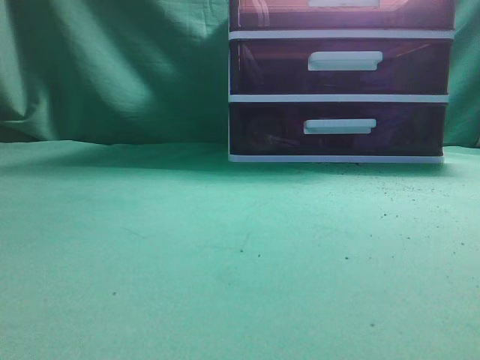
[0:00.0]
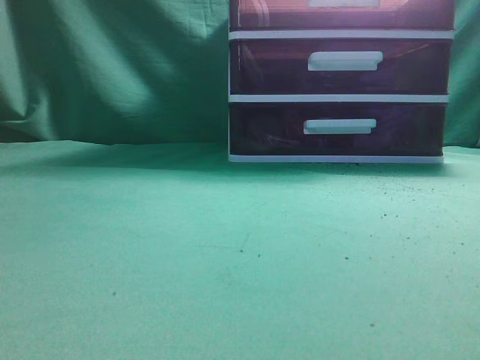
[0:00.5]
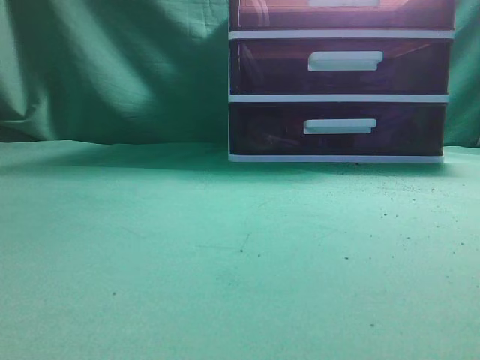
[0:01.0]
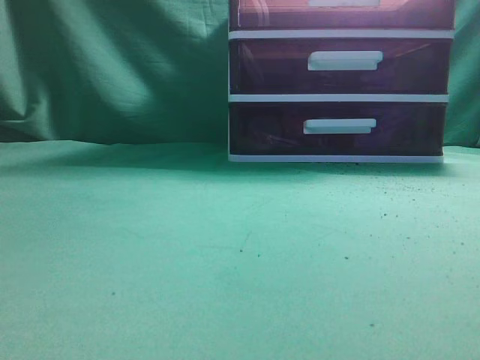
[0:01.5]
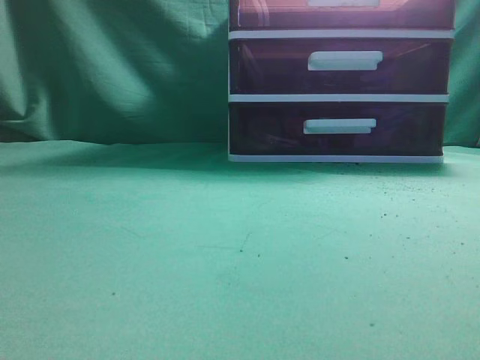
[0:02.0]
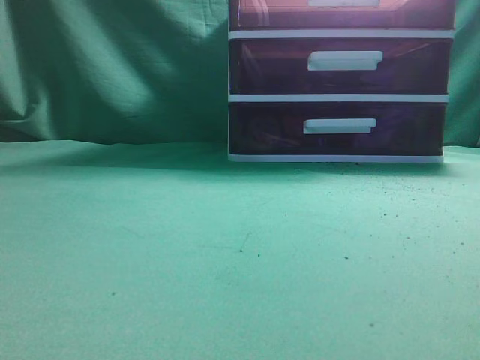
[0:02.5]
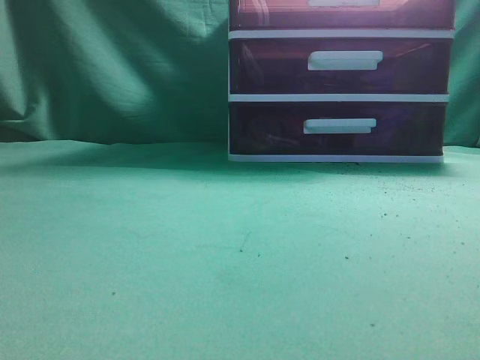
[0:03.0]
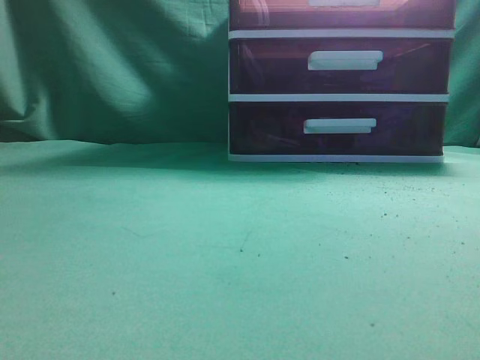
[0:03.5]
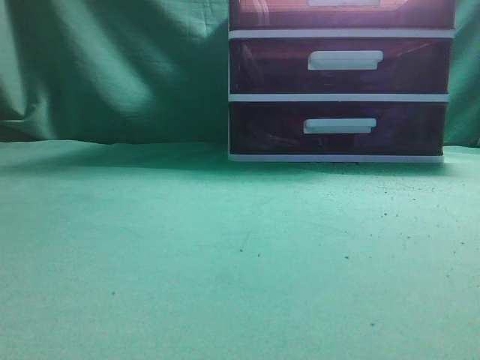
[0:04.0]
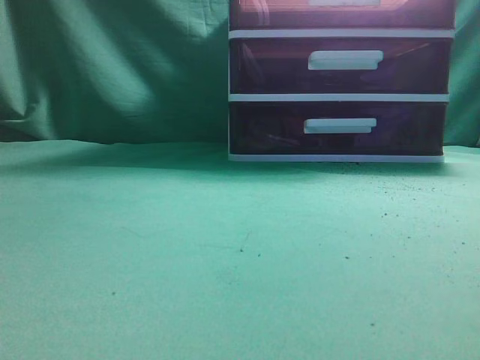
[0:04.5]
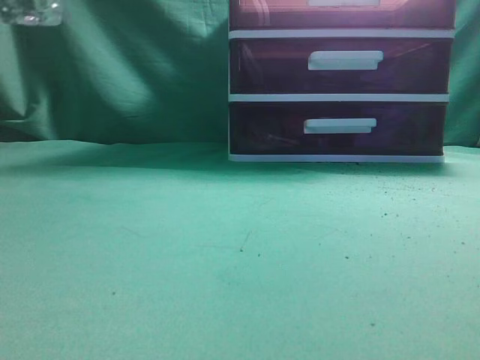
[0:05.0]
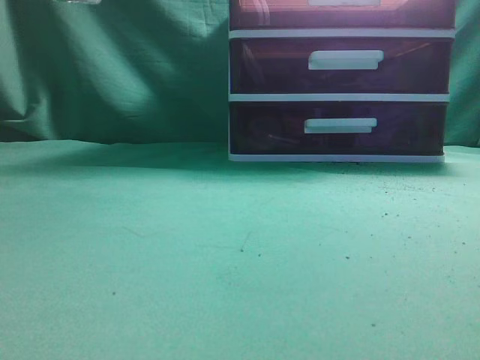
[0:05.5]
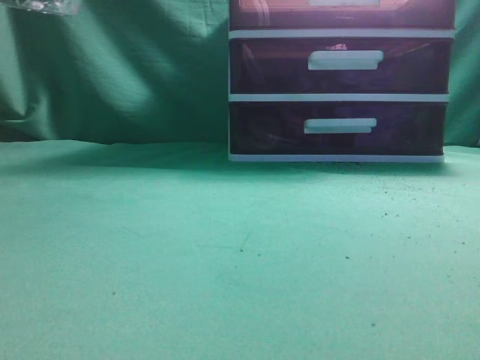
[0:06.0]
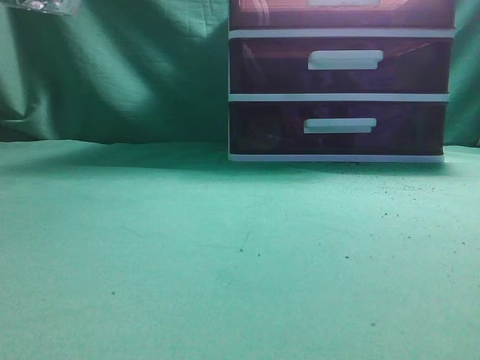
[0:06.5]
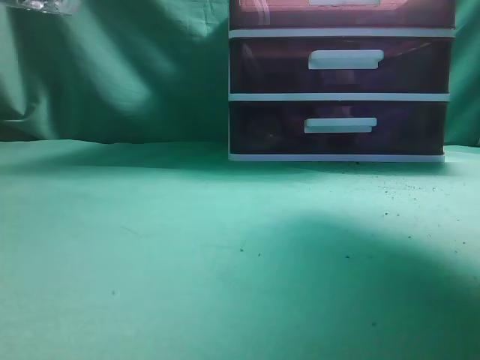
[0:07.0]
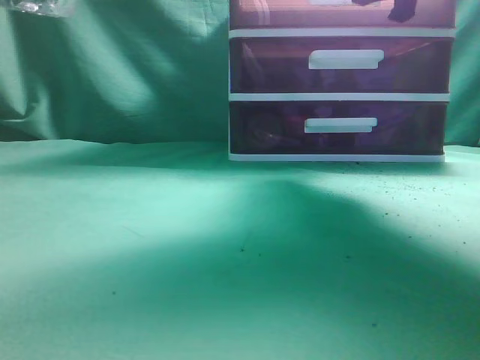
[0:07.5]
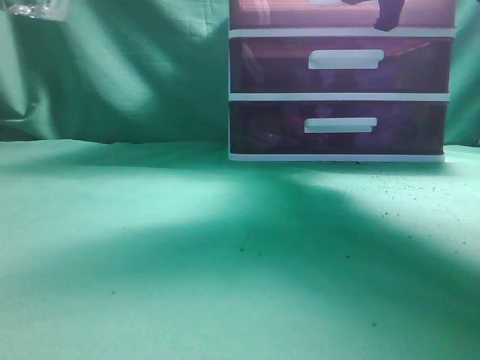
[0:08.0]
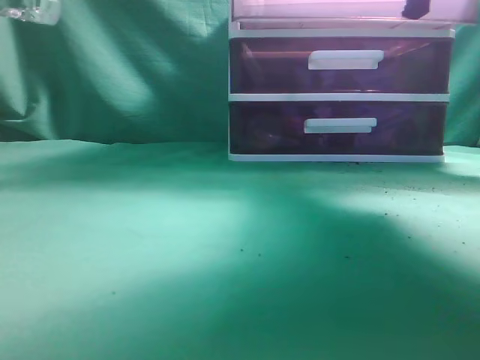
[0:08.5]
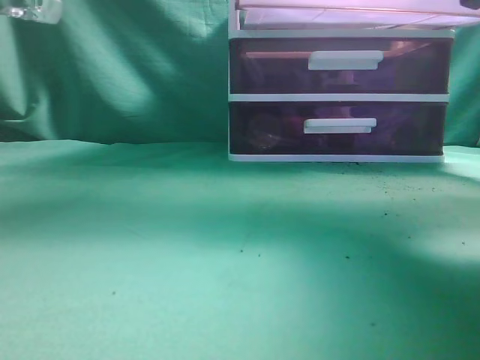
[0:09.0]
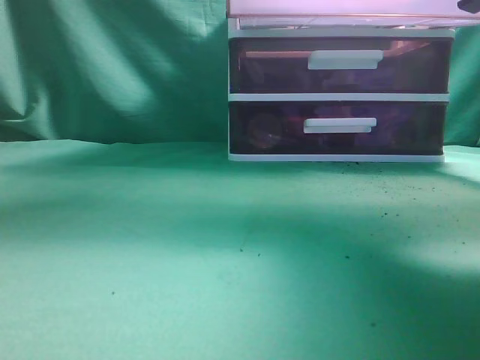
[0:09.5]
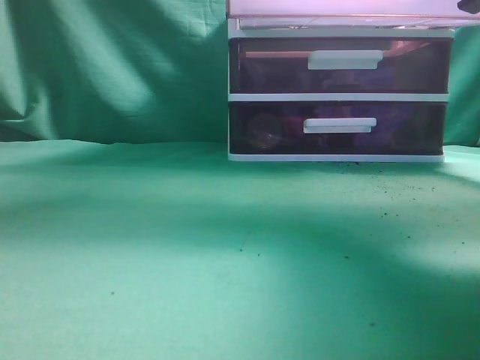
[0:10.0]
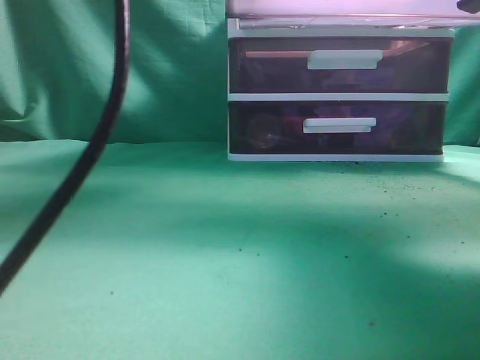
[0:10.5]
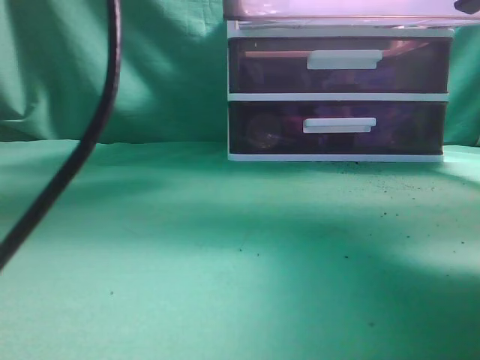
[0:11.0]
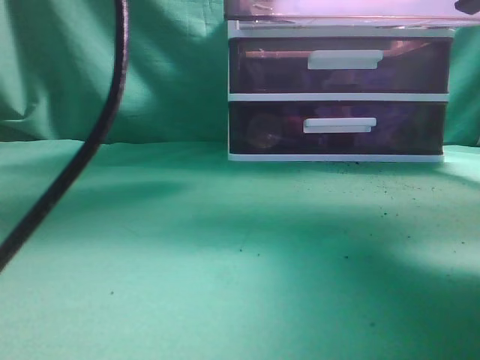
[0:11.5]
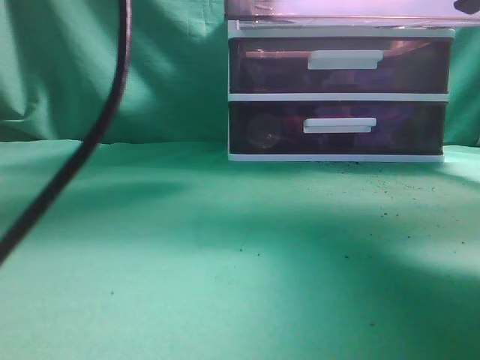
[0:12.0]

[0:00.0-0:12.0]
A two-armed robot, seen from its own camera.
Task of the whole recording: place the water bottle into the drawer.
Step, 0:00.0 to 0:09.0: Open the drawer.
0:06.0 to 0:08.0: The right gripper goes about 30 cm forward.
0:08.0 to 0:10.0: The right gripper travels backward by approximately 15 cm. The left gripper goes roughly 20 cm upward and to the right.
0:10.0 to 0:12.0: The left gripper heads forward, downward and to the right, covering some 20 cm, and opens up.

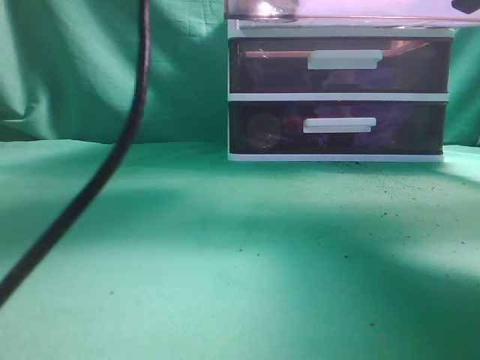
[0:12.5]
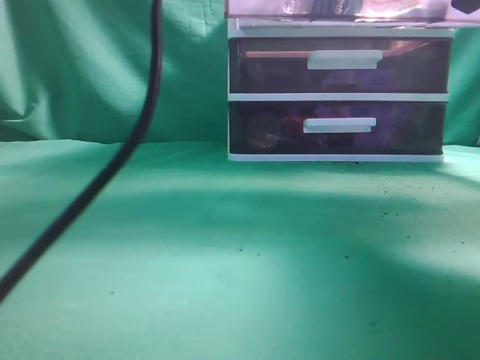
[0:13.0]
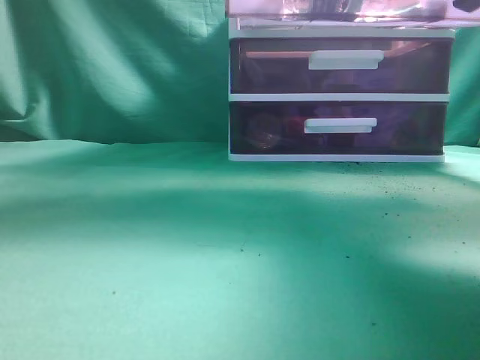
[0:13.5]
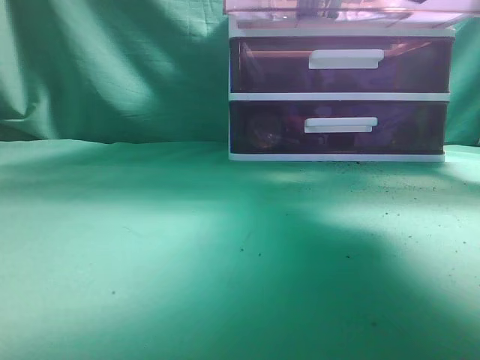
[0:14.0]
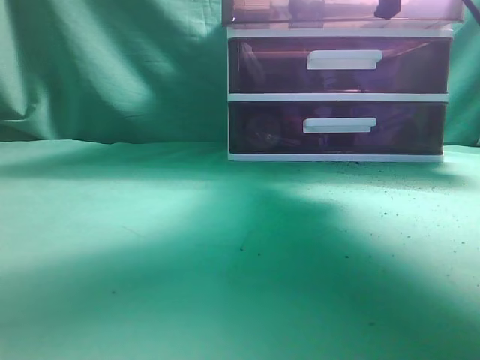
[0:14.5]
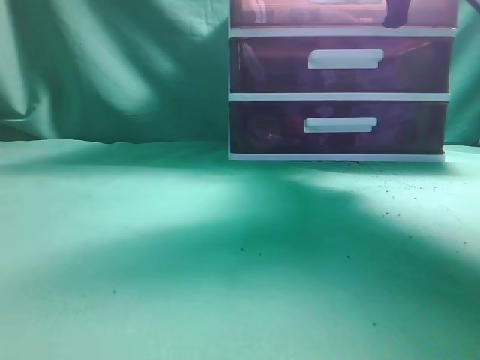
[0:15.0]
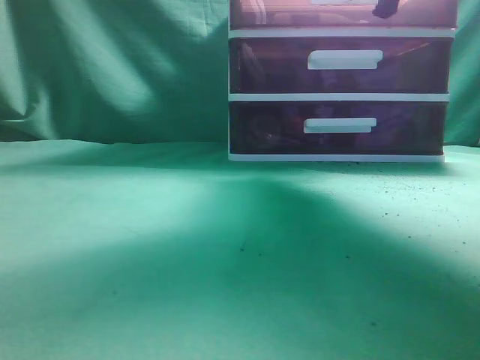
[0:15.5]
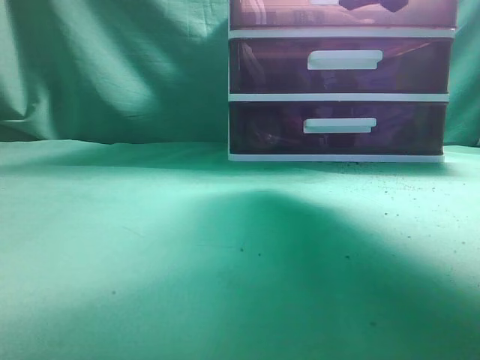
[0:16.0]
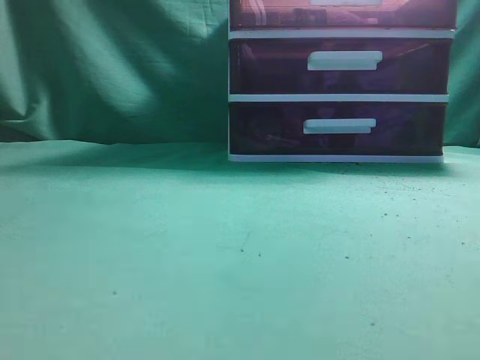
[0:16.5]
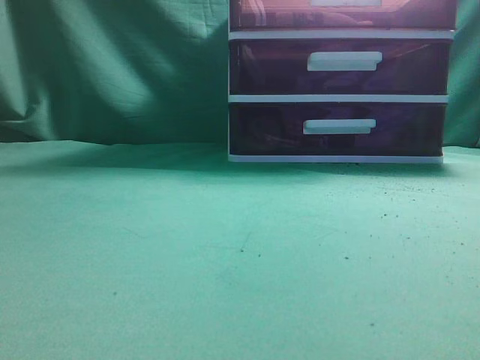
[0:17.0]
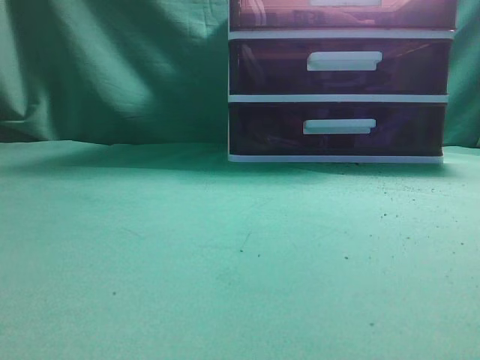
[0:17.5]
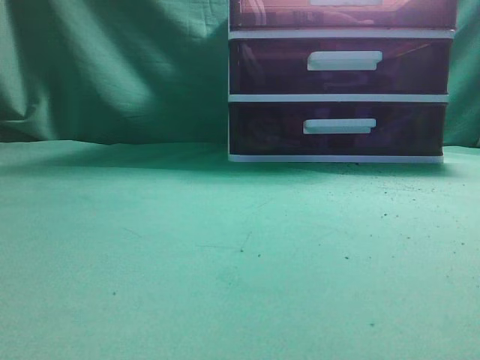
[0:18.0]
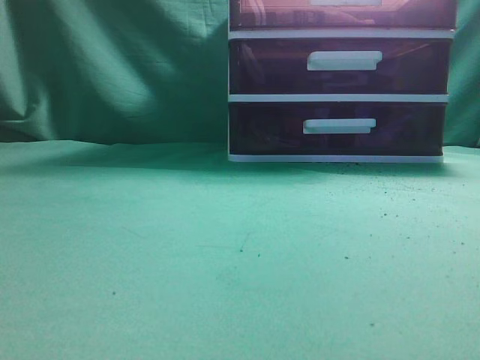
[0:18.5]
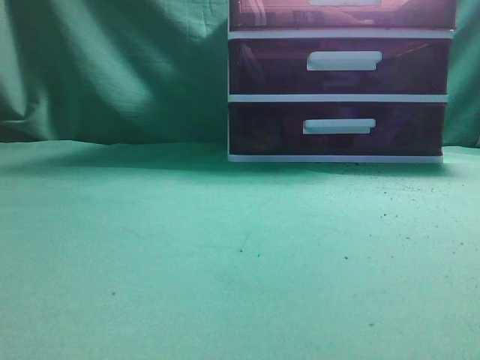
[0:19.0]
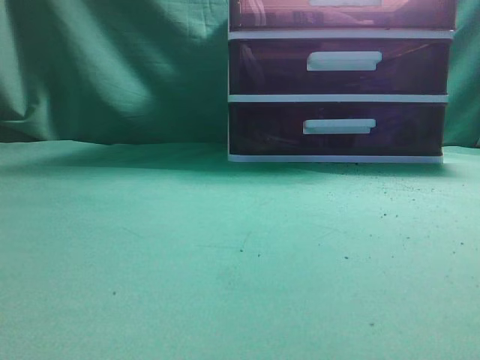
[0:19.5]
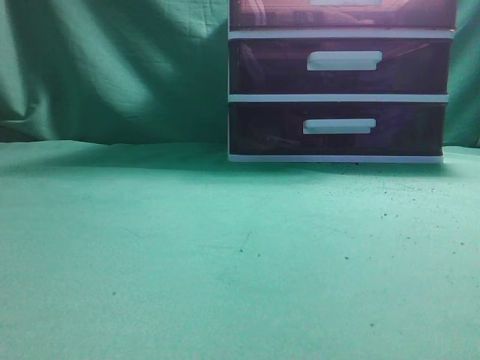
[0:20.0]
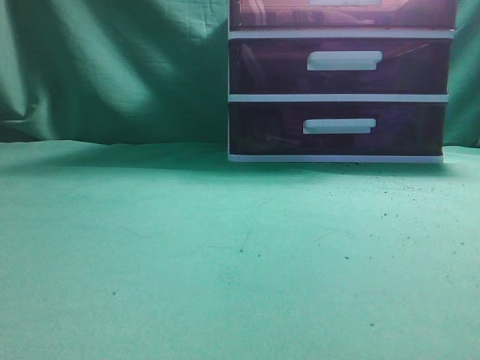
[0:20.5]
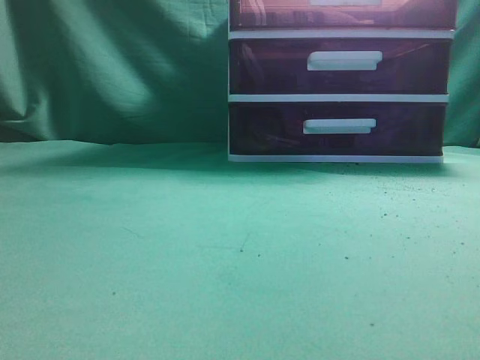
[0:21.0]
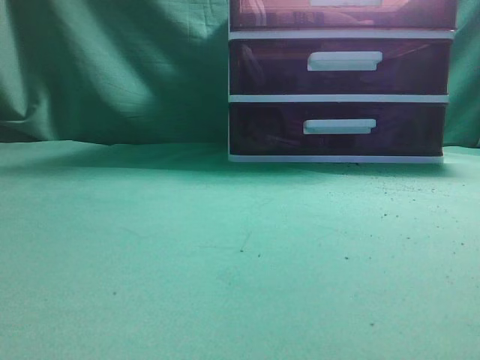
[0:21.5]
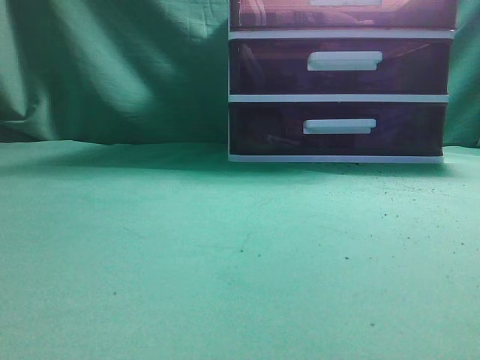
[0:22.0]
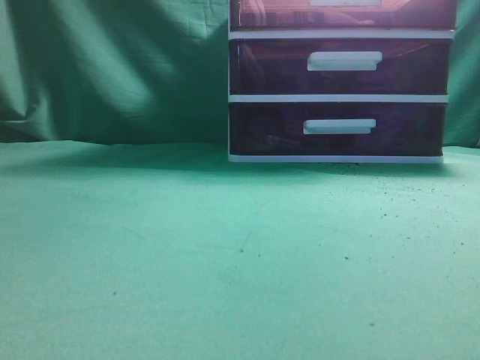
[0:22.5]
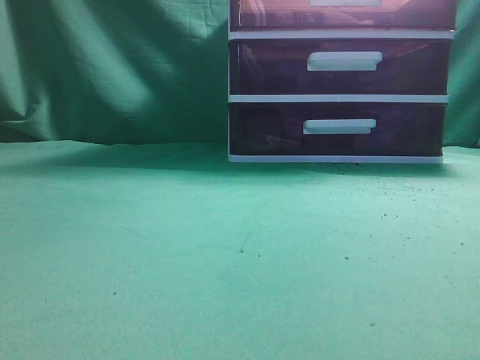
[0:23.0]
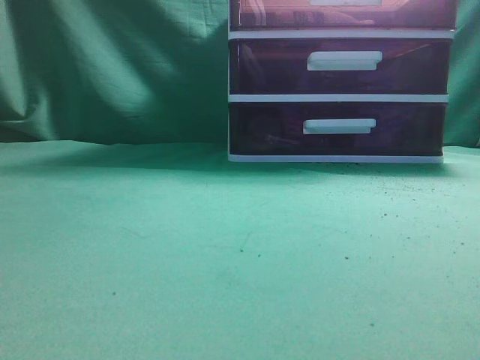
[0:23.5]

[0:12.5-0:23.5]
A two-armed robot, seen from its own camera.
Task of the whole recording: place the water bottle into the drawer.
Step, 0:14.0 to 0:16.0: Close the drawer.
0:12.5 to 0:14.5: The right gripper goes about 10 cm forward; the left gripper heads to the left, covering approximately 15 cm, and closes up.
0:14.5 to 0:16.0: The left gripper heads backward, covering about 10 cm, while the right gripper opens.
0:16.0 to 0:18.0: The right gripper moves backward, some 35 cm, and closes up. The left gripper shifts some 20 cm backward.
